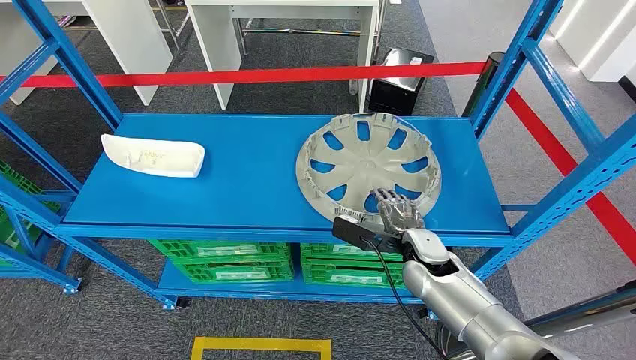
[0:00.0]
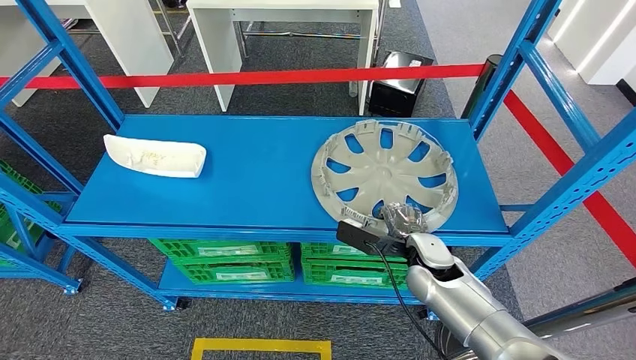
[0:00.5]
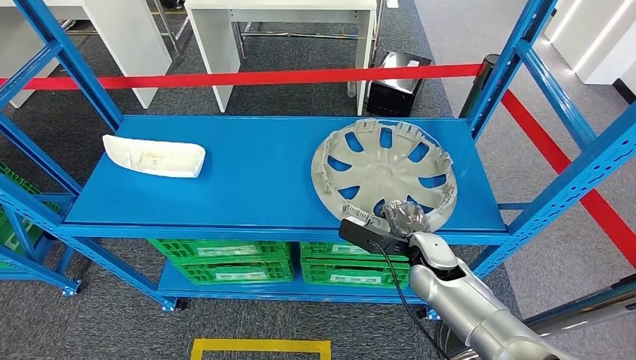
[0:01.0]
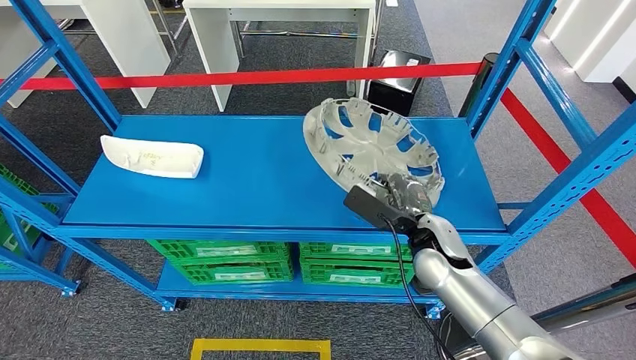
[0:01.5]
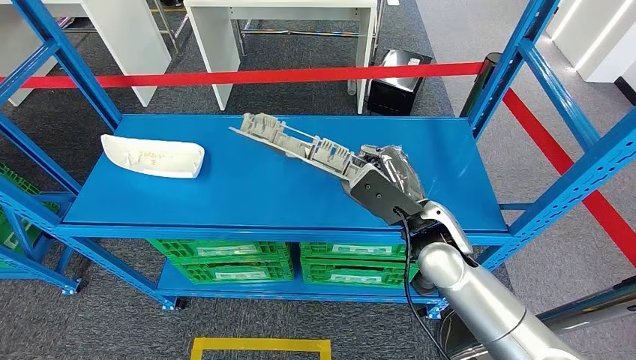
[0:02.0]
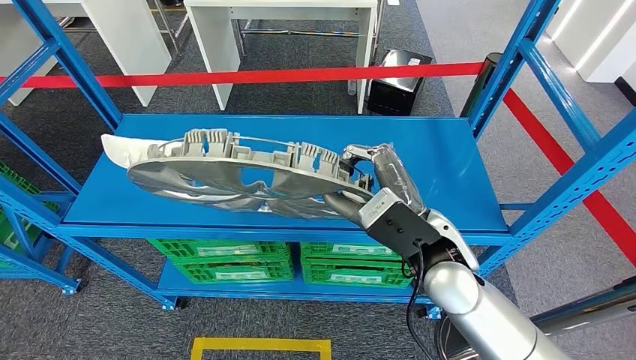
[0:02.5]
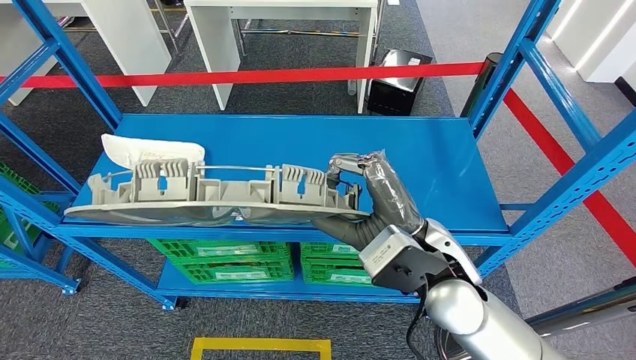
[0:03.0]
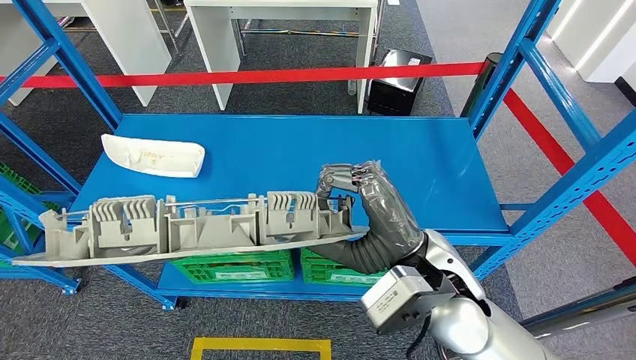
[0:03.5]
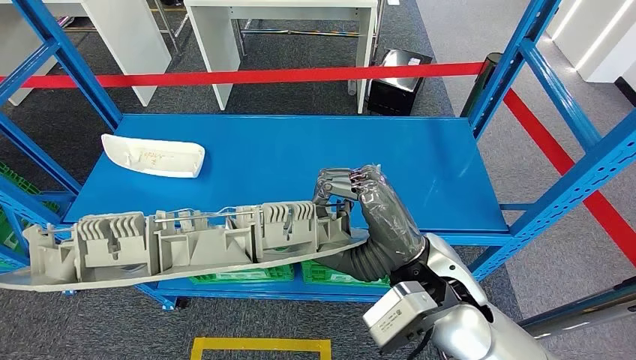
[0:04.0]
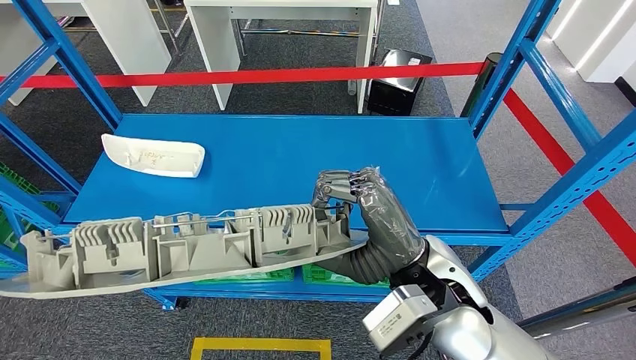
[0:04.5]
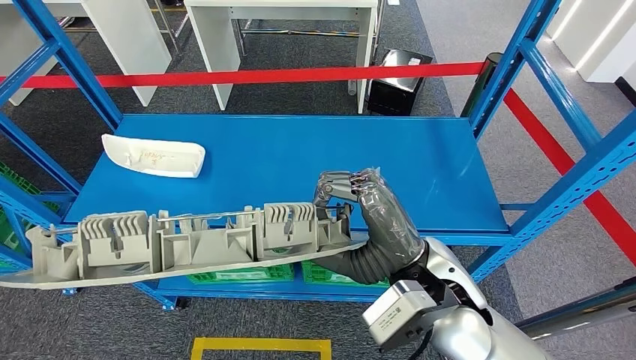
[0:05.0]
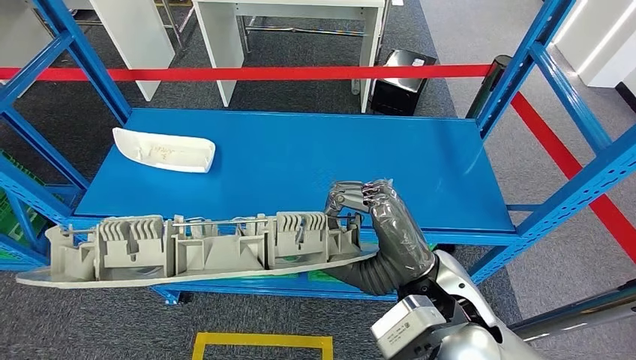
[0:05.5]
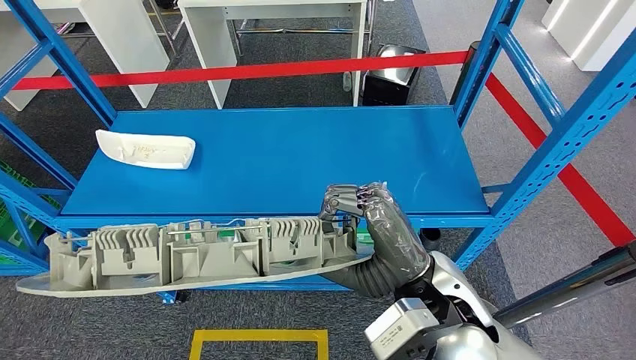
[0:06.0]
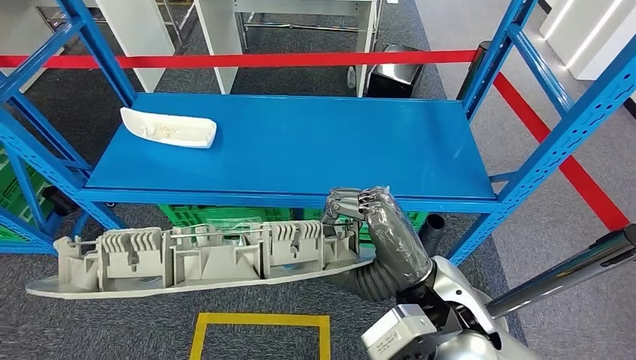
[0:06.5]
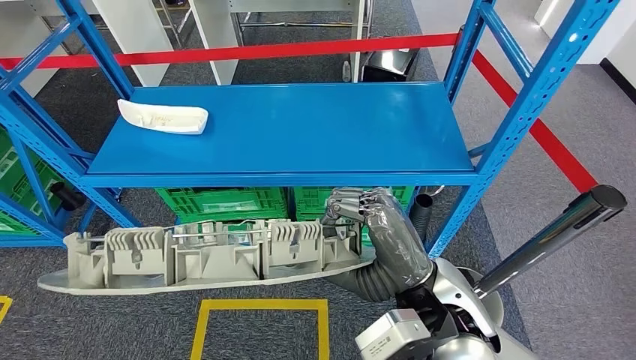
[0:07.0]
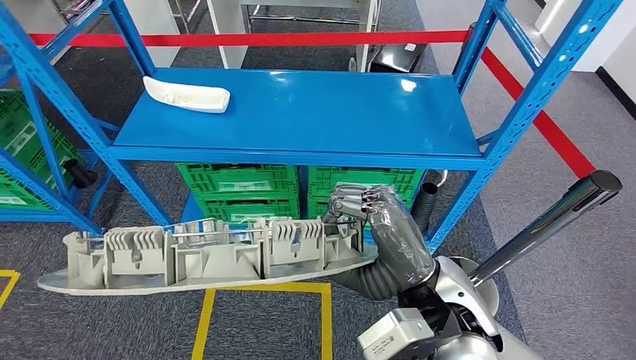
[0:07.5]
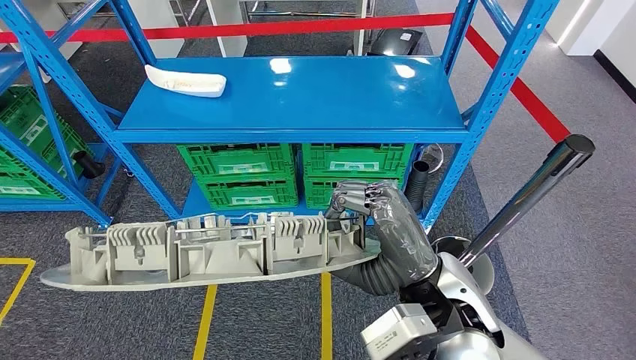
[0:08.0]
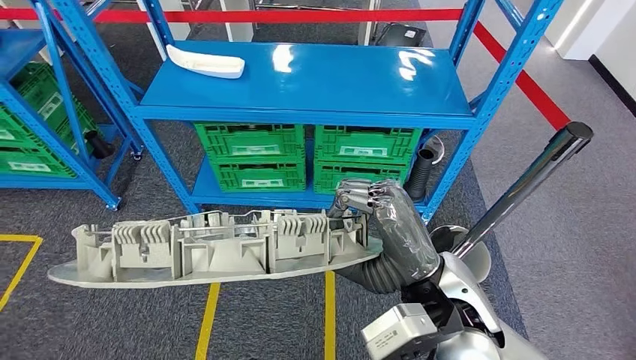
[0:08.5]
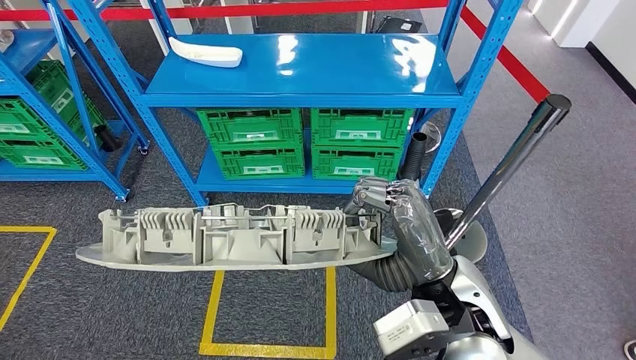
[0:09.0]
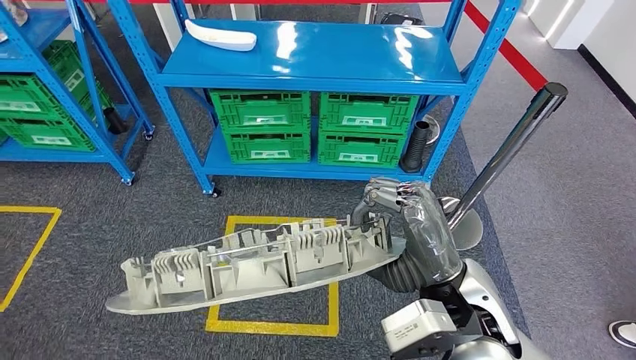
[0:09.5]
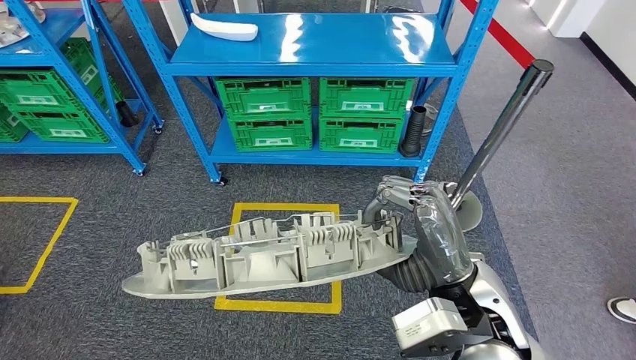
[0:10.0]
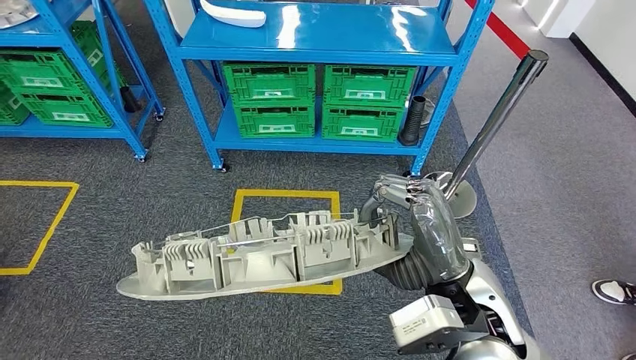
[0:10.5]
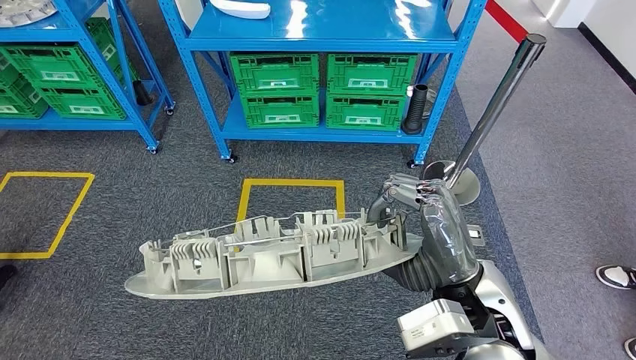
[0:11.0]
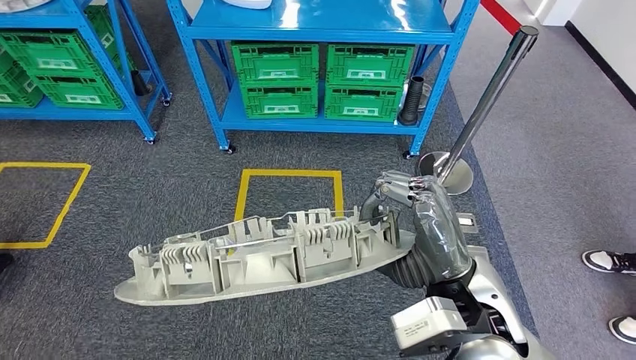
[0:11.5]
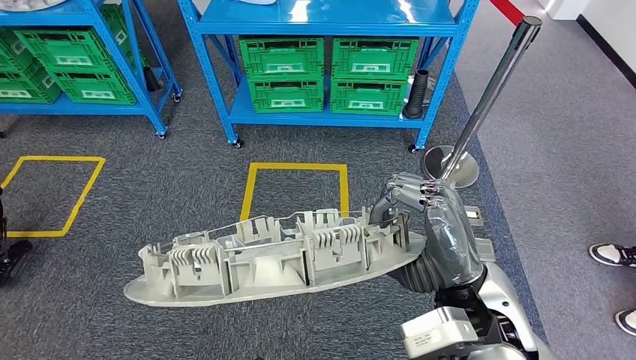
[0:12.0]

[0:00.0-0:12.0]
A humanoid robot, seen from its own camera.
Step, 0:00.0 to 0:05.5: Pick up the large material from the shelf.
0:02.0 to 0:04.0: The right hand shifts roughly 10 cm backward and upward.

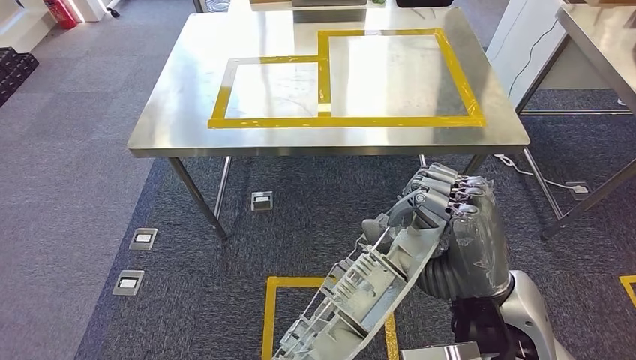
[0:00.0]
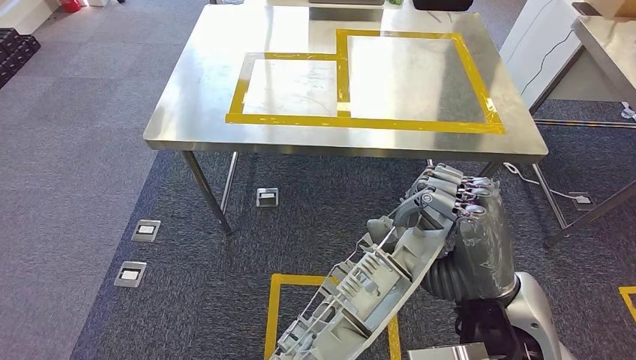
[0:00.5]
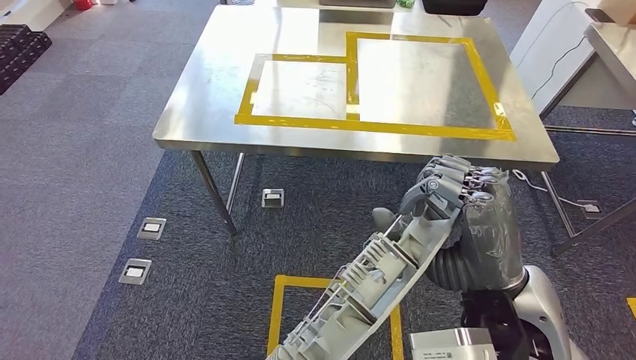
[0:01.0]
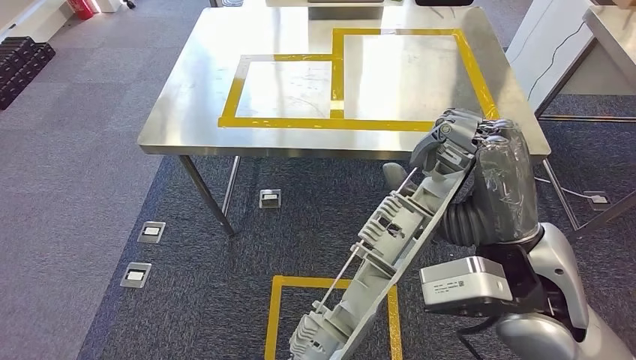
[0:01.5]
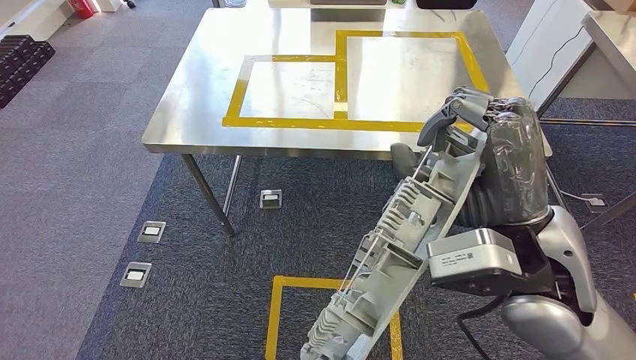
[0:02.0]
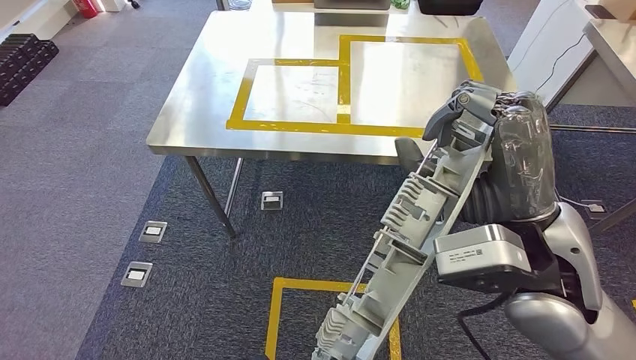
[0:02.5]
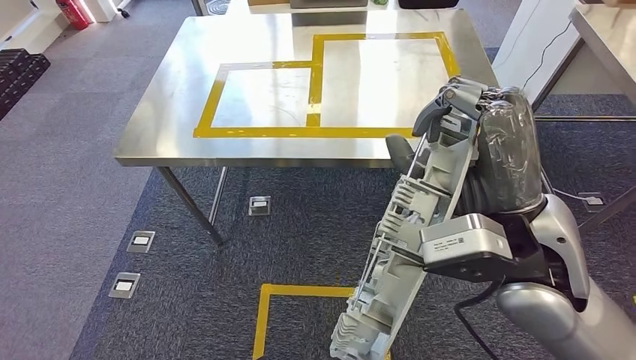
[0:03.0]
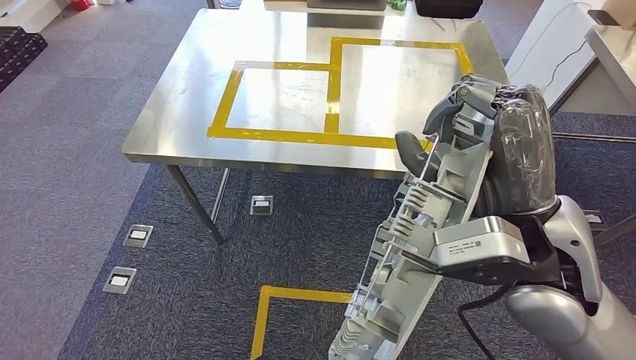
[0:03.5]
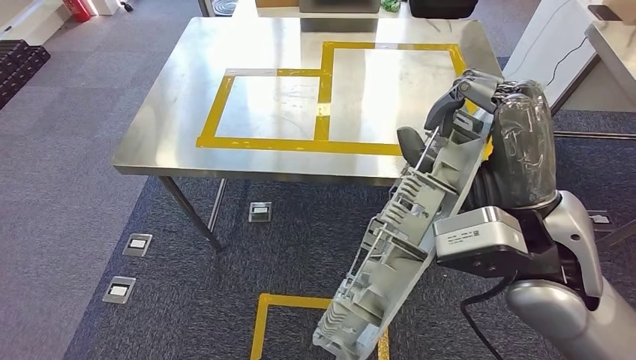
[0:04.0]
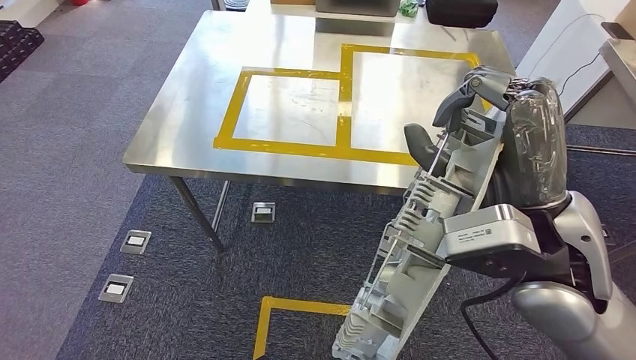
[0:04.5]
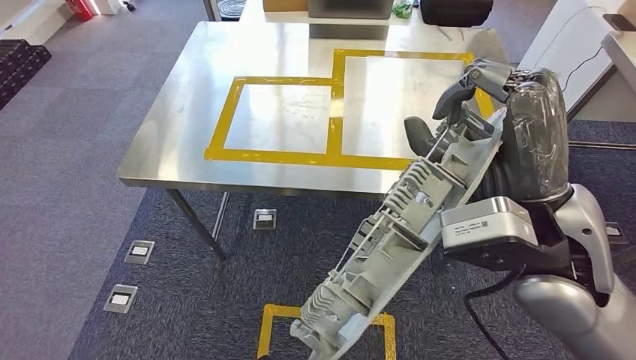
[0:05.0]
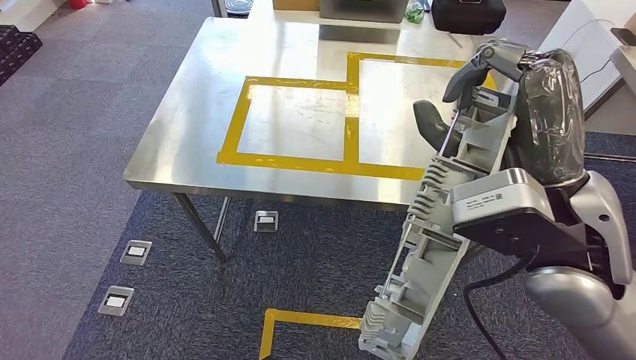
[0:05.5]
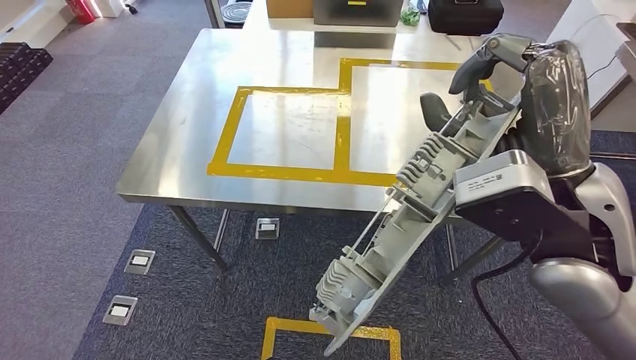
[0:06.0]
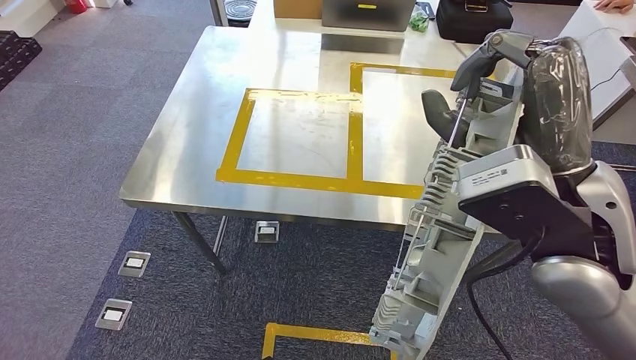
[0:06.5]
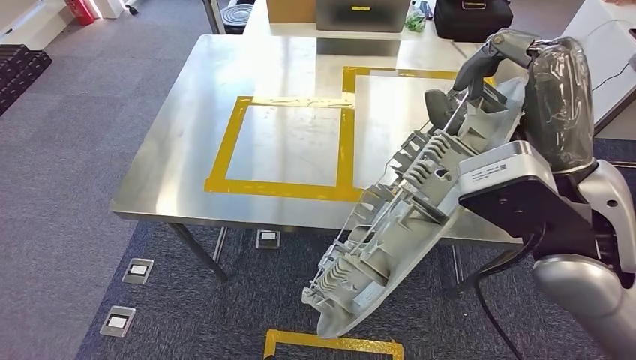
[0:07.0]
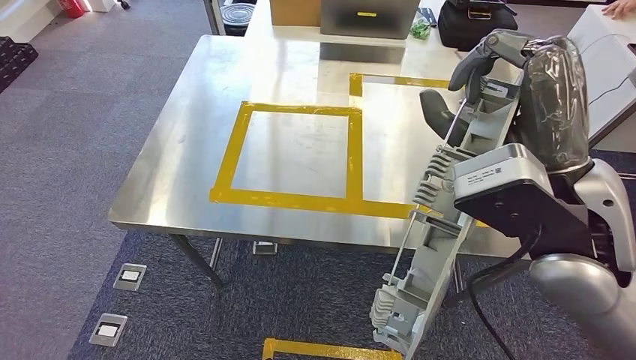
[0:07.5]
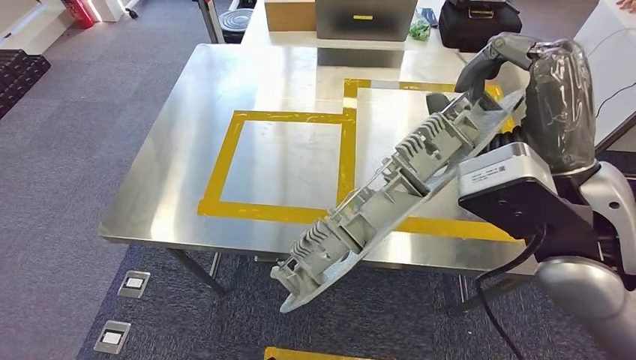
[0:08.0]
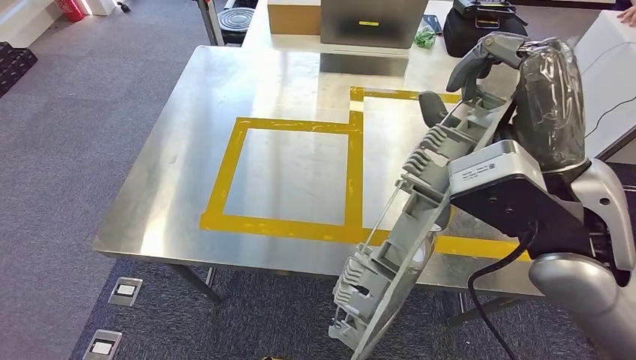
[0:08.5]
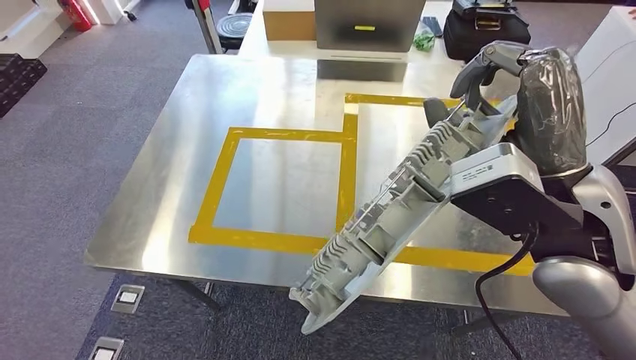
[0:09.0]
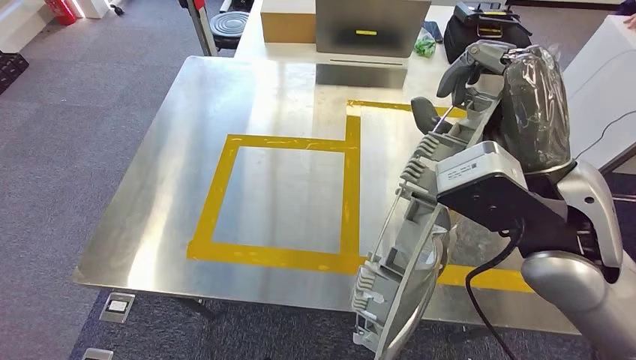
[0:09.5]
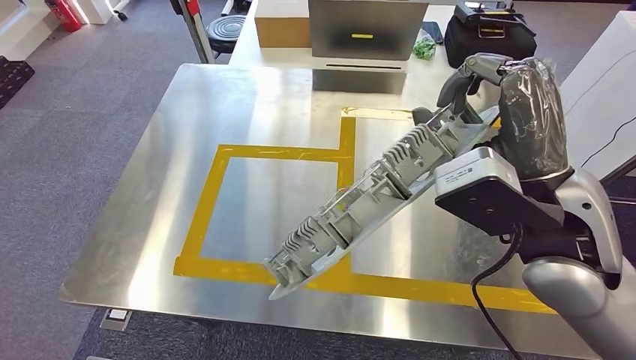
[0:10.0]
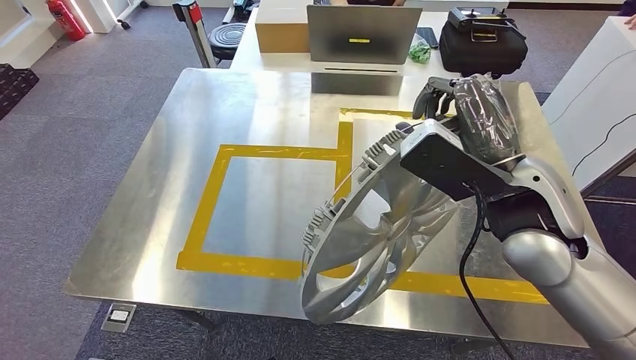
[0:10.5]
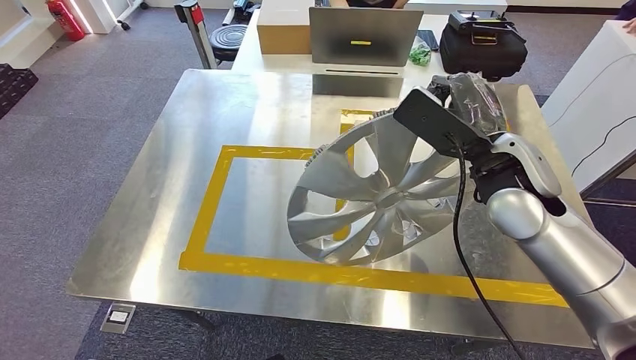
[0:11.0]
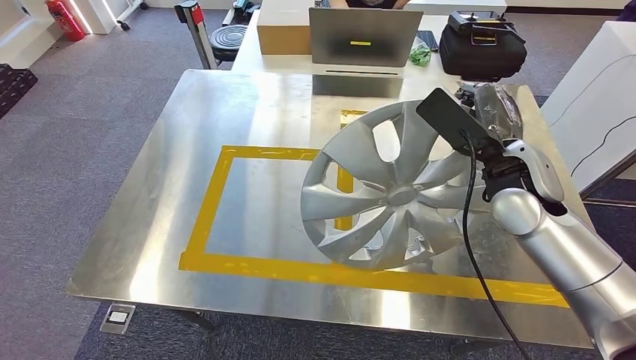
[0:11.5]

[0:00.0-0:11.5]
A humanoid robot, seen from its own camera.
Step, 0:00.0 to 0:03.0: Move the large material to the workbench.
